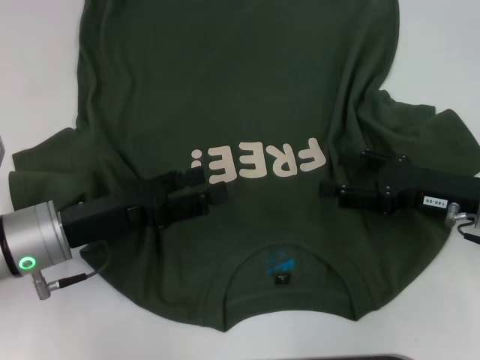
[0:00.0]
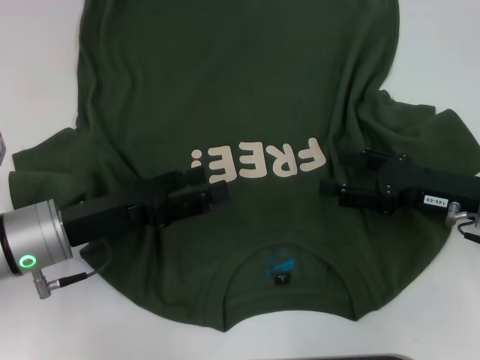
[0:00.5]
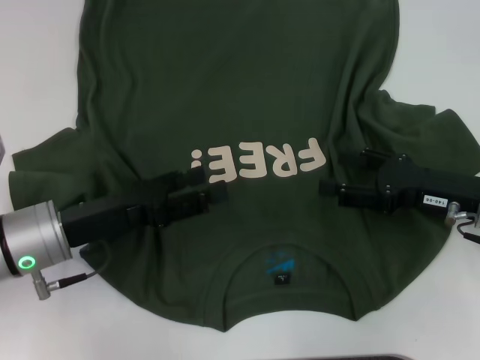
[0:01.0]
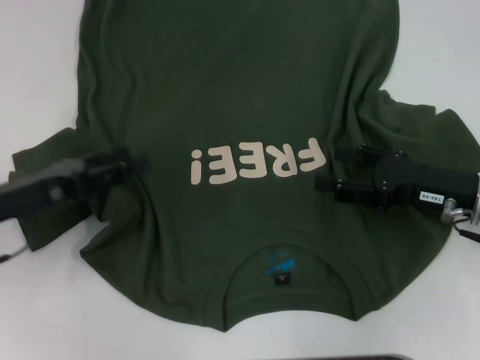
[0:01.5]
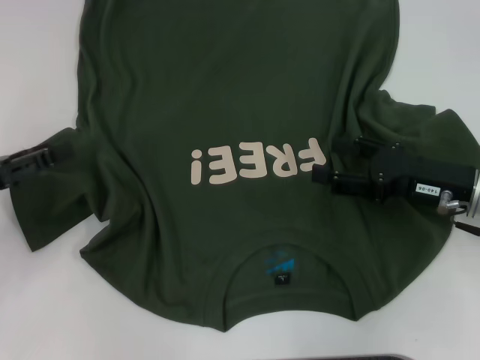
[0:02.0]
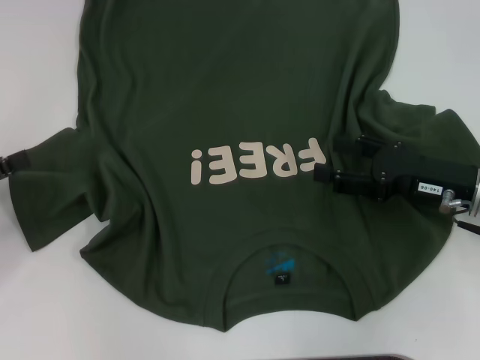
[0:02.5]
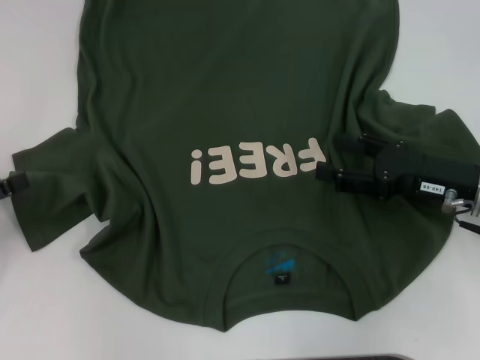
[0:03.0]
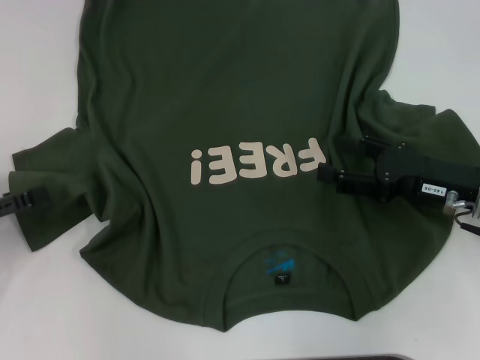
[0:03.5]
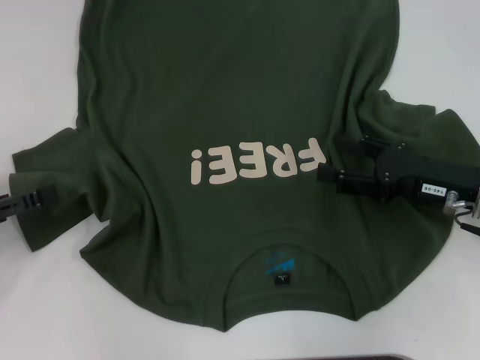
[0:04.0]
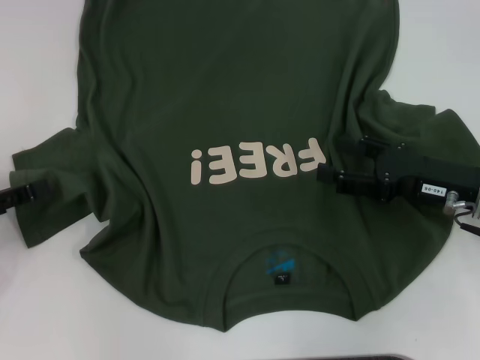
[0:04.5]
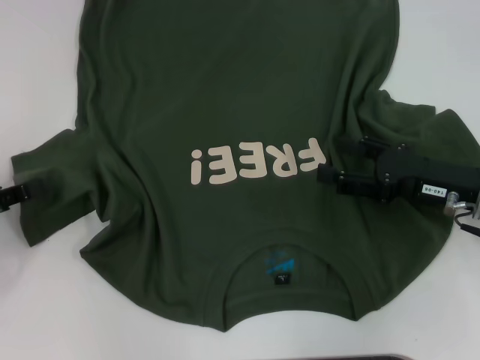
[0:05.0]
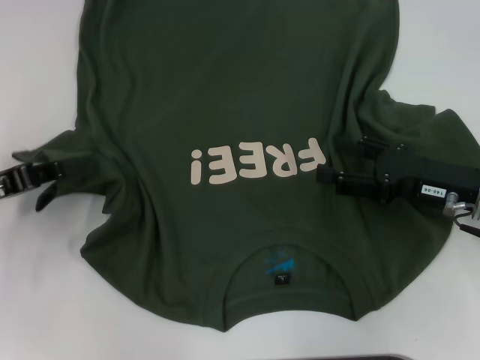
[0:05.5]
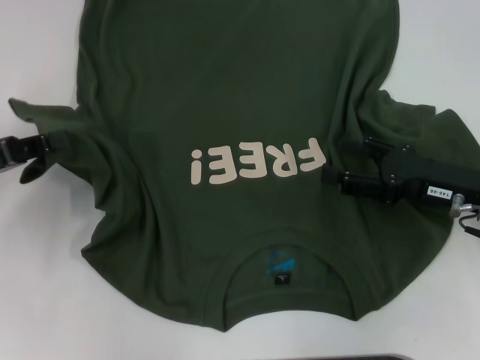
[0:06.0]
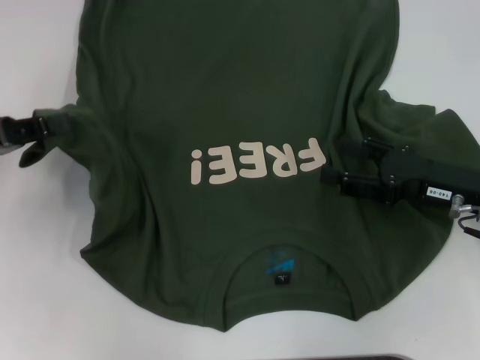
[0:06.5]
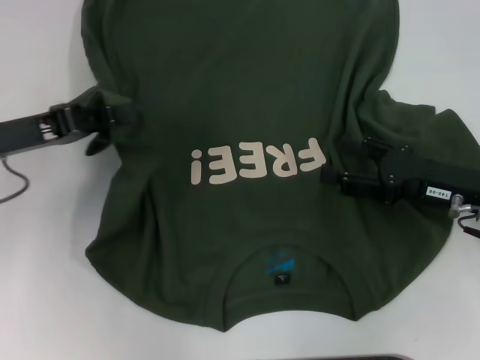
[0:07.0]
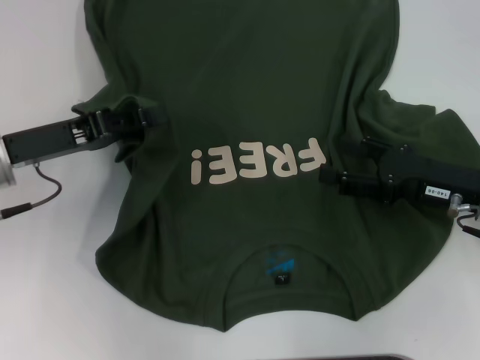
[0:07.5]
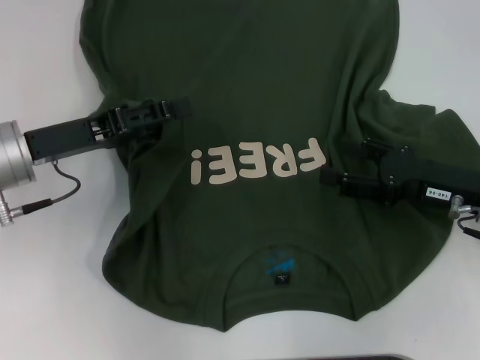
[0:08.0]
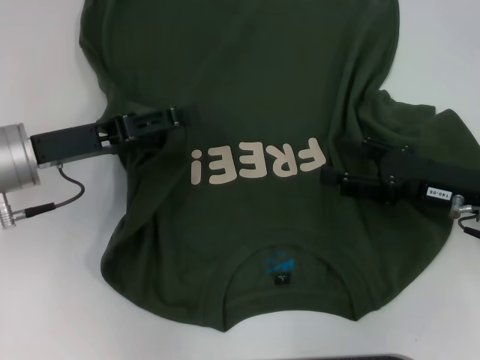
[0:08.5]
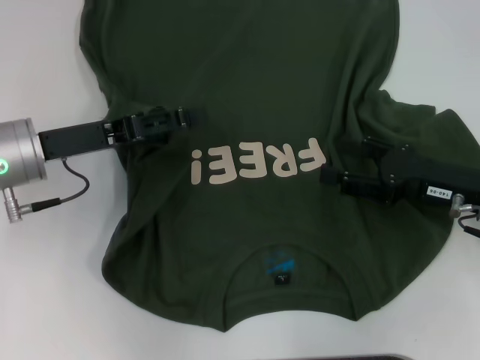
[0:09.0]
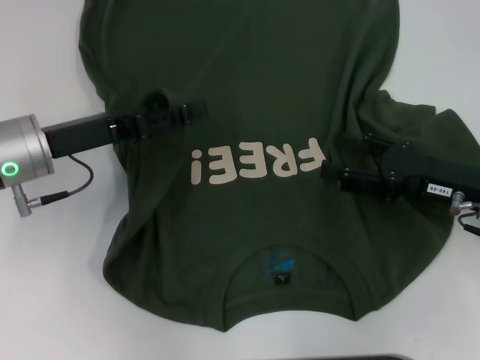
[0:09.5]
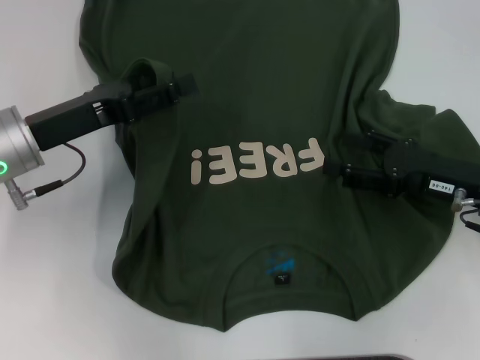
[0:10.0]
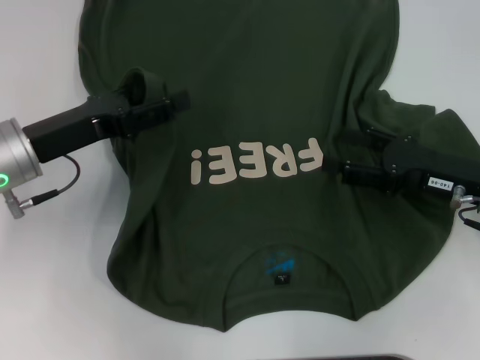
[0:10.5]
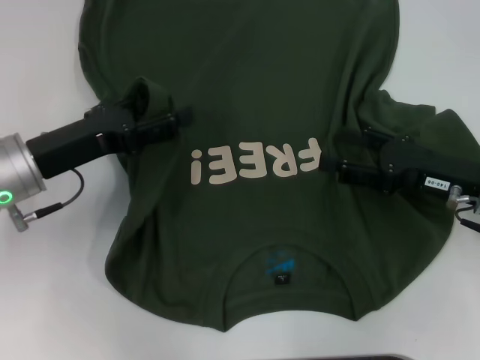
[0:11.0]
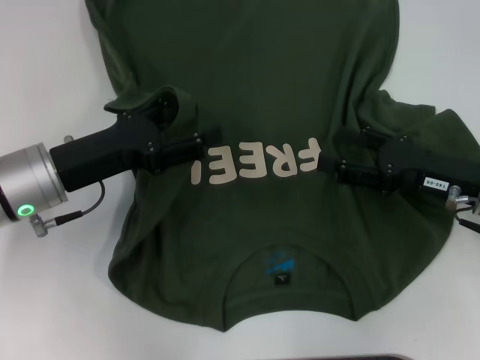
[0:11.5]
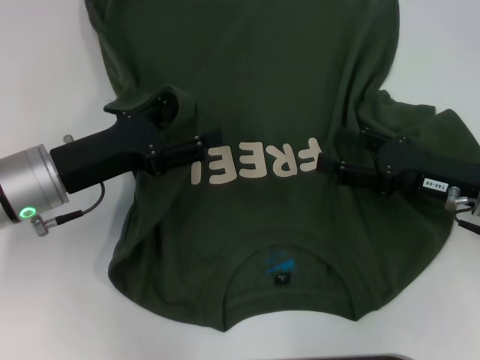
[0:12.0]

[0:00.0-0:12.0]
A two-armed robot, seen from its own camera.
0:00.0 to 0:02.0: The left gripper travels to the left by approximately 10 cm.
0:02.0 to 0:04.0: The grippers stay close to where they were, moving slightly.
0:04.0 to 0:06.0: The left gripper changes place by roughly 5 cm, and closes.
0:06.0 to 0:08.0: The left gripper goes roughly 10 cm to the right, and opens up.
0:08.0 to 0:10.0: The left gripper opens its fingers.
0:10.0 to 0:12.0: The grippers stay close to where they were, moving slightly.

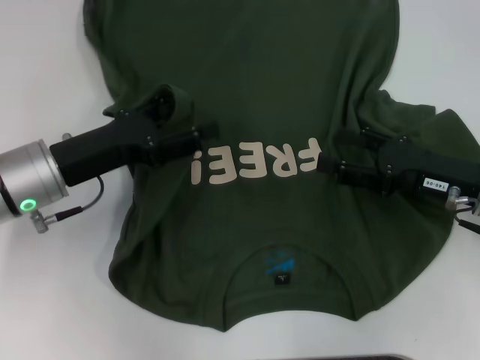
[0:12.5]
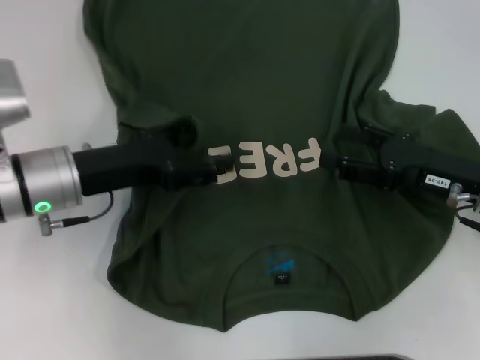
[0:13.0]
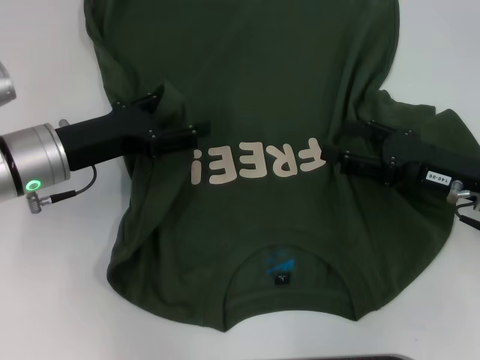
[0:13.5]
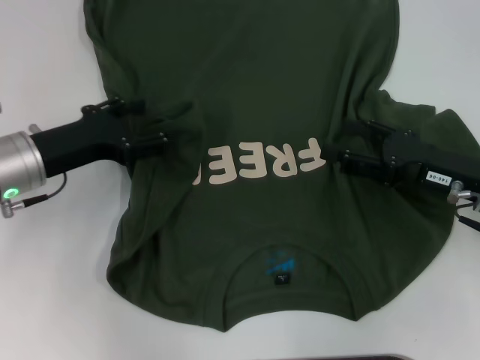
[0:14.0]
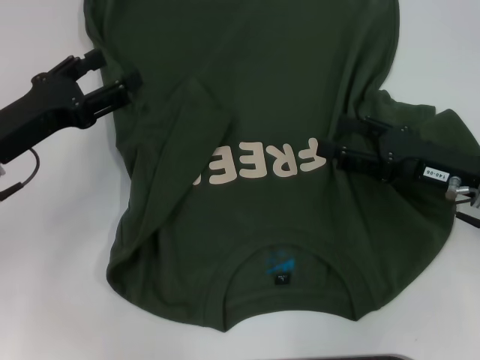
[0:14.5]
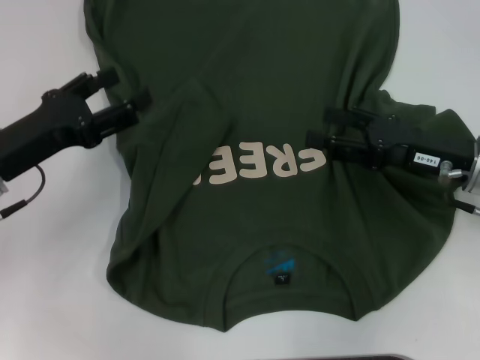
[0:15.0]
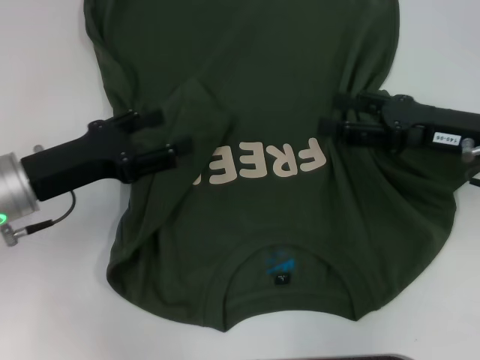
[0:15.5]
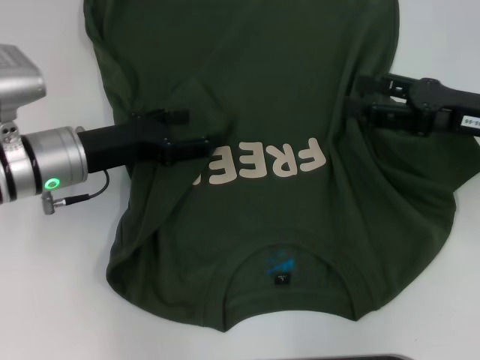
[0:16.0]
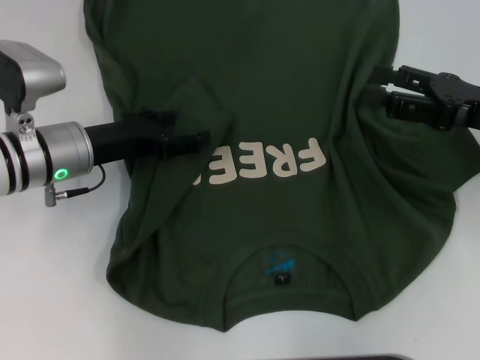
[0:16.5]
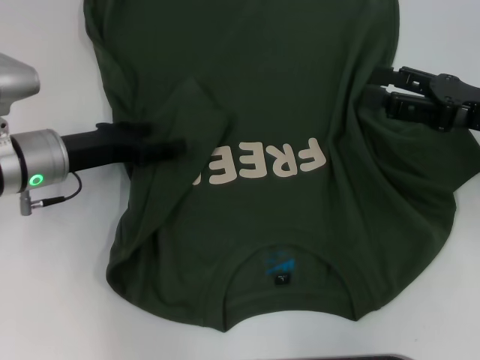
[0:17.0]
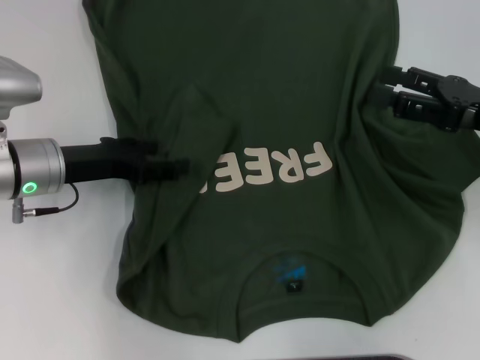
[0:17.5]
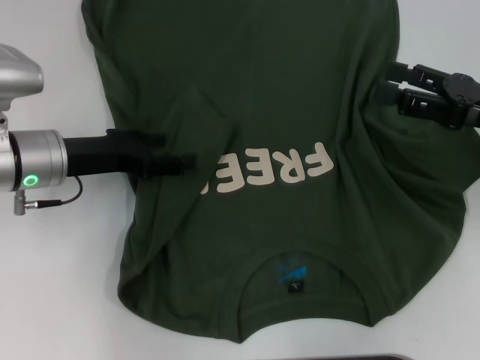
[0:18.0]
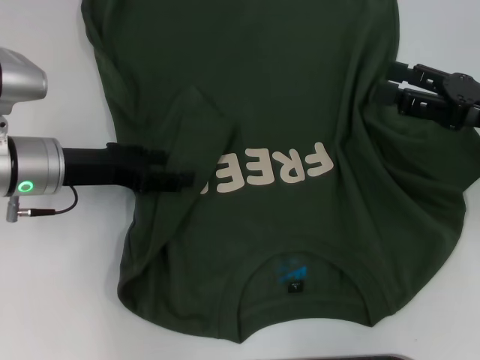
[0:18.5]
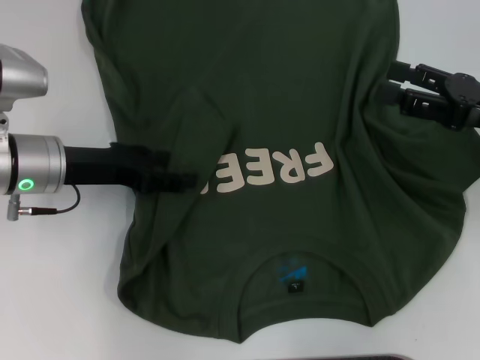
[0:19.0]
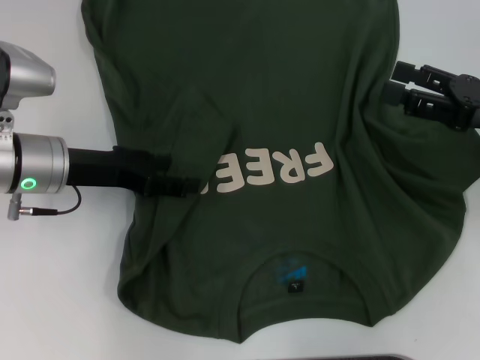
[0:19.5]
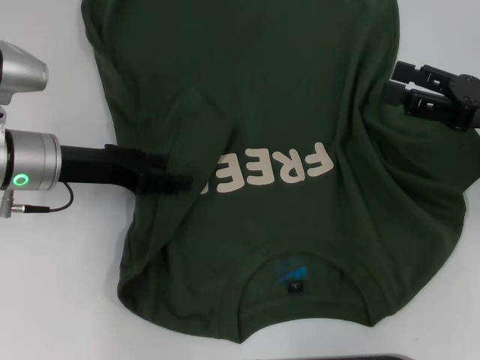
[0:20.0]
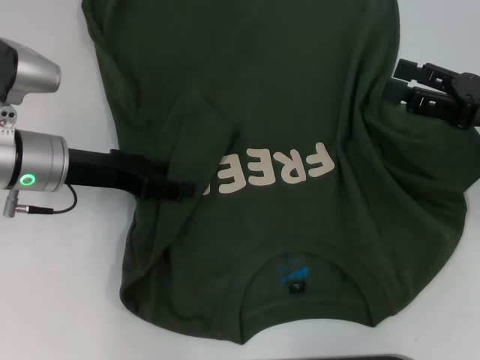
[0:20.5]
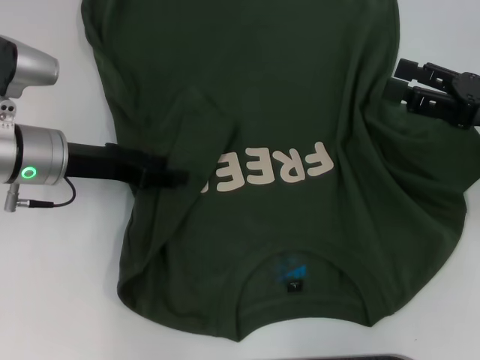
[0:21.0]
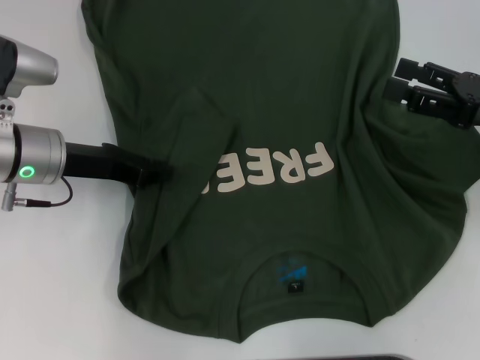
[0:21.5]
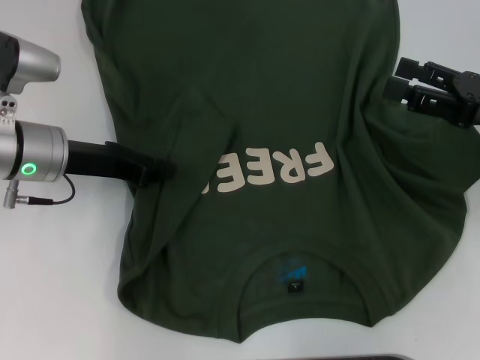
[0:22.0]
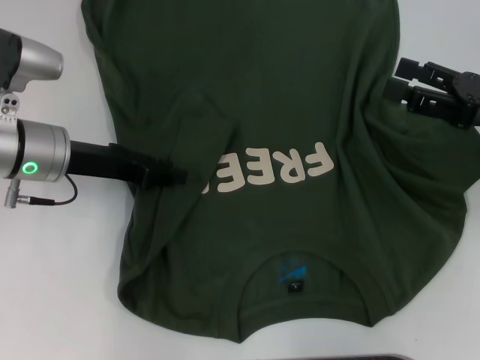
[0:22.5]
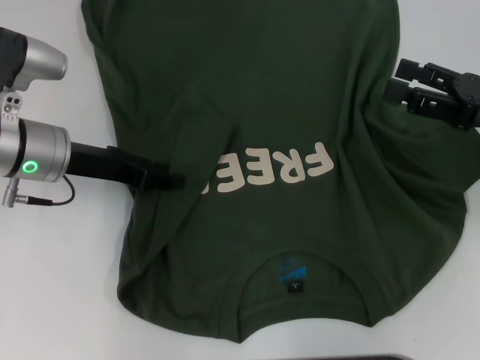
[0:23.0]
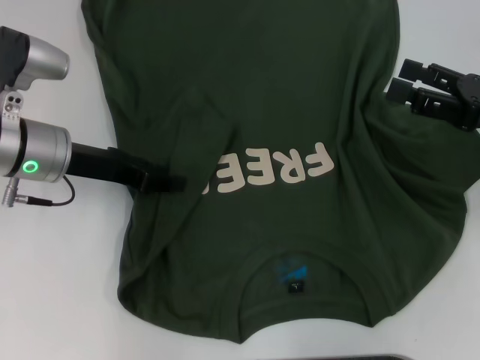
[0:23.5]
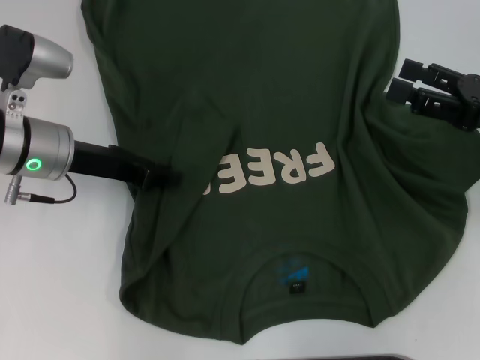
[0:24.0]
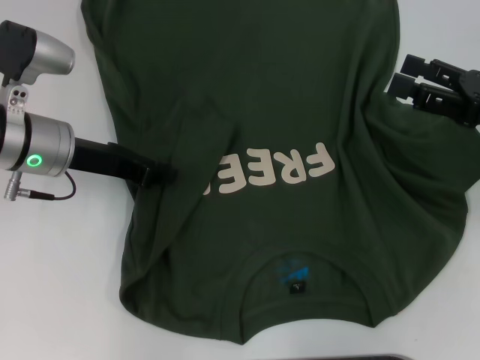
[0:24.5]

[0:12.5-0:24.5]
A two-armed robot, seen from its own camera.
0:12.5 to 0:14.5: The left gripper changes place by some 5 cm.
0:14.5 to 0:16.5: The right gripper travels upward by some 5 cm. The left gripper heads to the right, covering some 5 cm.
0:16.5 to 0:20.5: The grippers move only a little.
0:20.5 to 0:22.5: The left gripper closes up.
0:22.5 to 0:24.5: The two grippers keep their place.

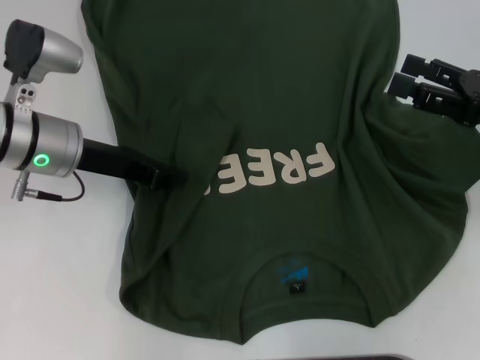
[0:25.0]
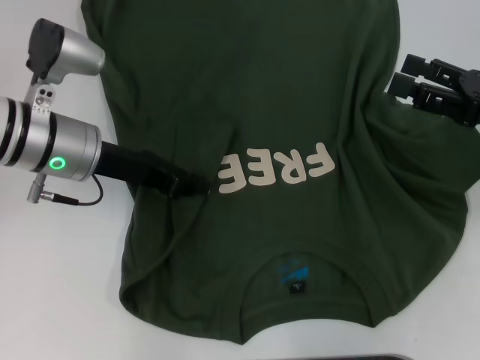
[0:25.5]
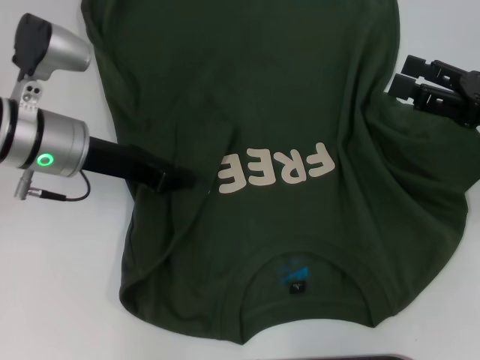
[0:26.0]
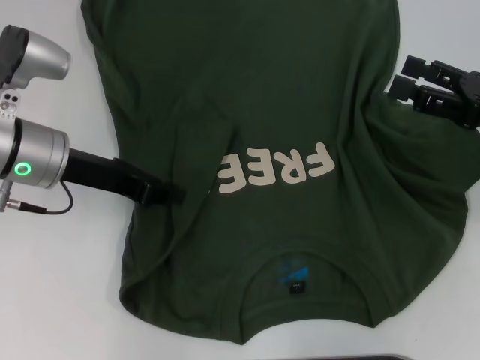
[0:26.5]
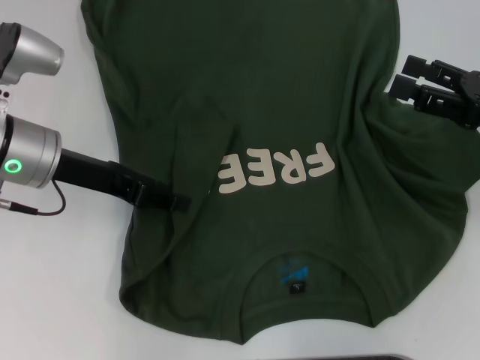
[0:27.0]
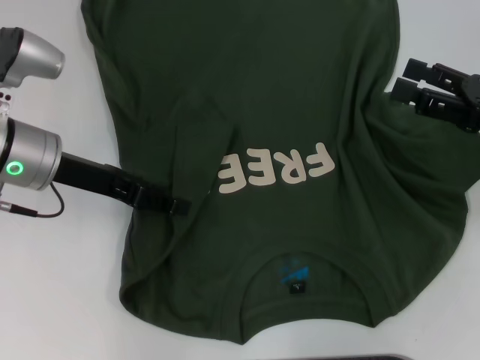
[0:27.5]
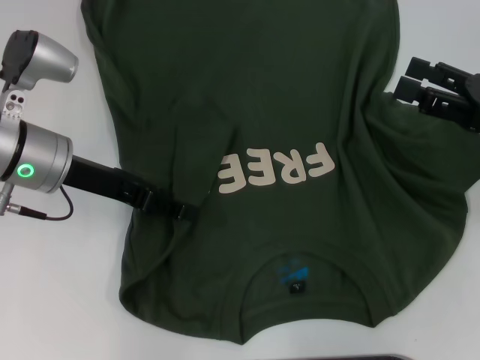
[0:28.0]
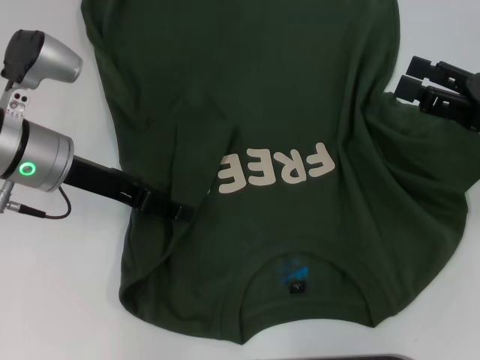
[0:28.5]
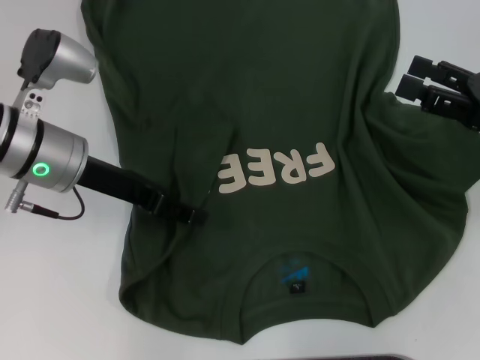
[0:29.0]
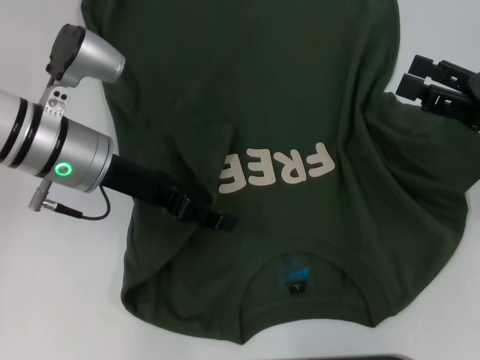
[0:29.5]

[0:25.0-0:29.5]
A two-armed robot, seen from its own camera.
0:25.0 to 0:29.5: The grippers move only a little.
